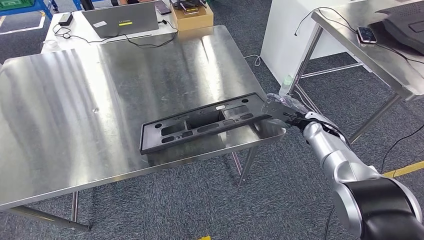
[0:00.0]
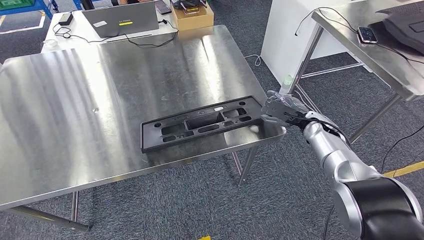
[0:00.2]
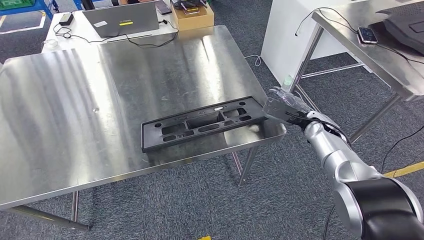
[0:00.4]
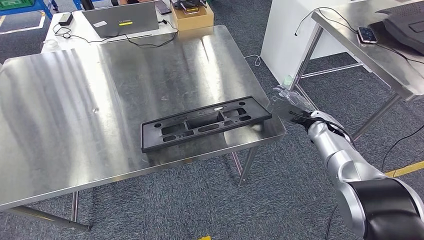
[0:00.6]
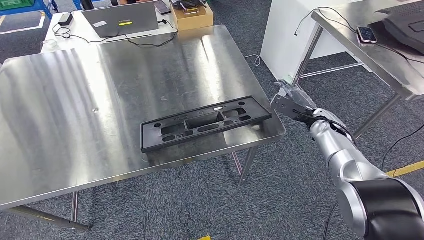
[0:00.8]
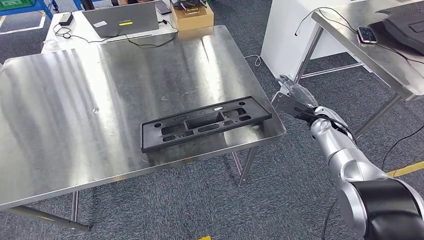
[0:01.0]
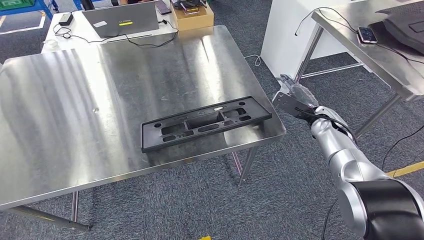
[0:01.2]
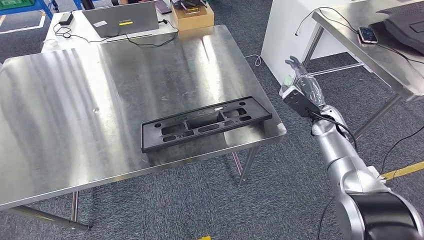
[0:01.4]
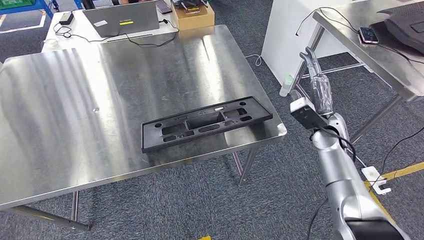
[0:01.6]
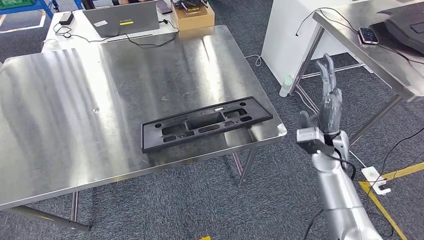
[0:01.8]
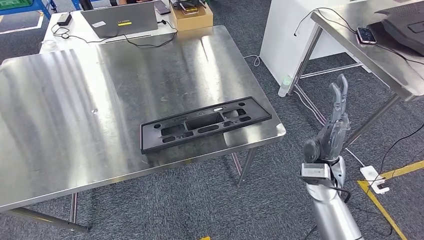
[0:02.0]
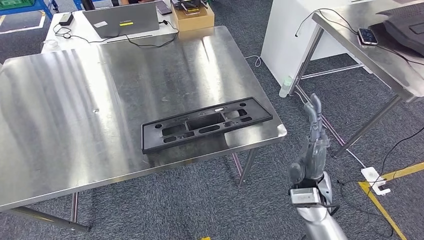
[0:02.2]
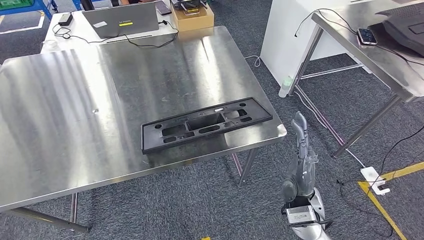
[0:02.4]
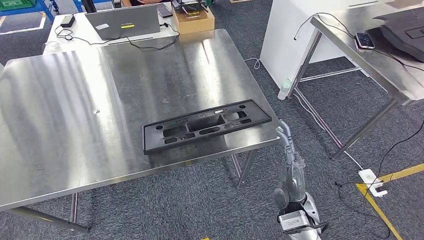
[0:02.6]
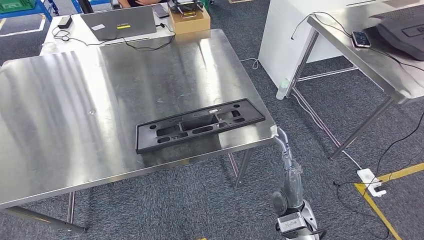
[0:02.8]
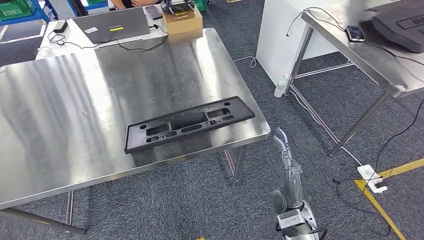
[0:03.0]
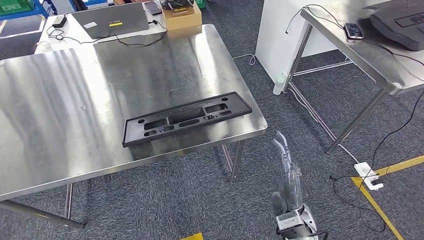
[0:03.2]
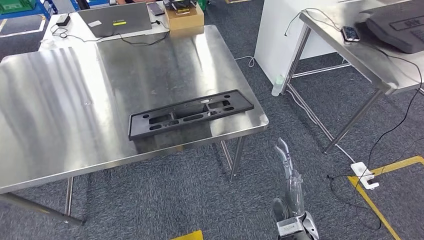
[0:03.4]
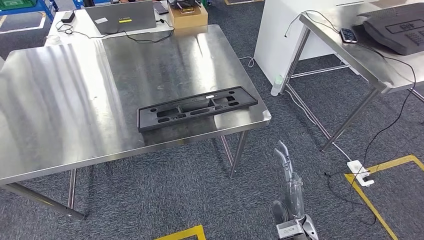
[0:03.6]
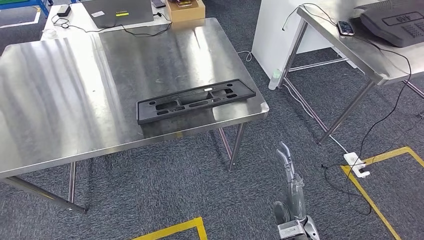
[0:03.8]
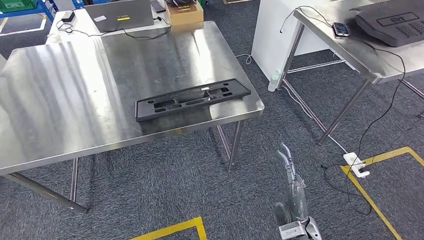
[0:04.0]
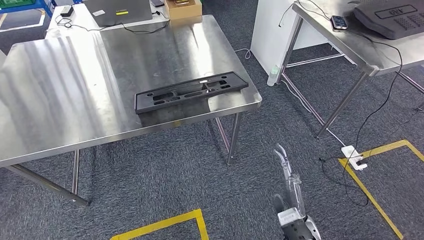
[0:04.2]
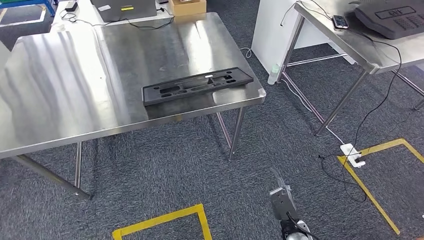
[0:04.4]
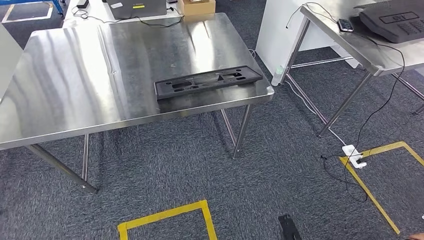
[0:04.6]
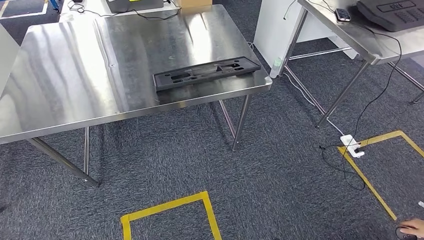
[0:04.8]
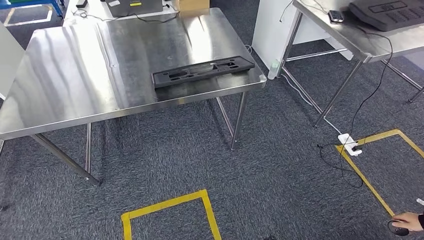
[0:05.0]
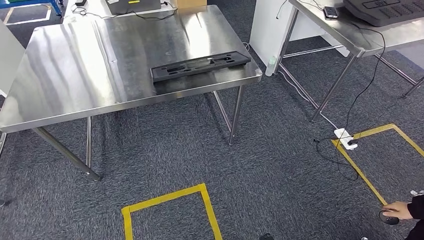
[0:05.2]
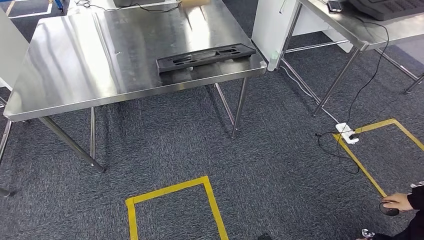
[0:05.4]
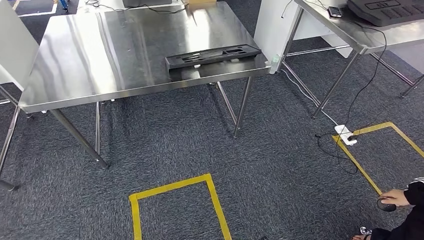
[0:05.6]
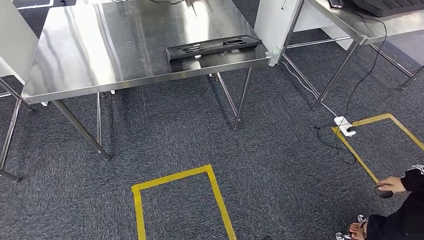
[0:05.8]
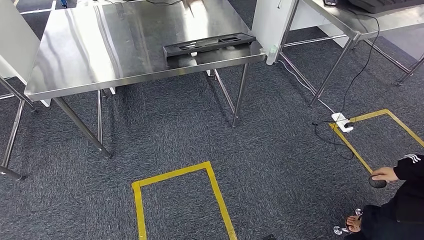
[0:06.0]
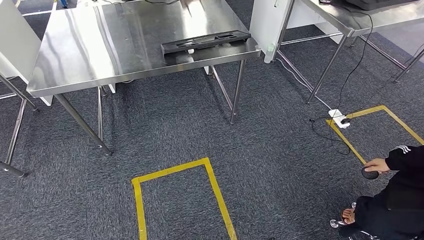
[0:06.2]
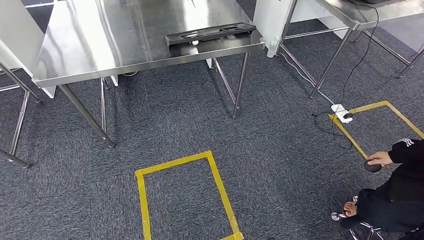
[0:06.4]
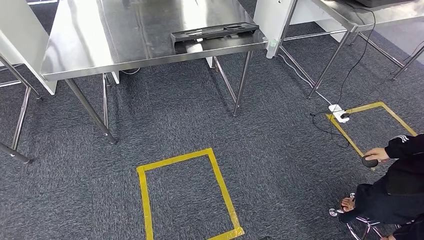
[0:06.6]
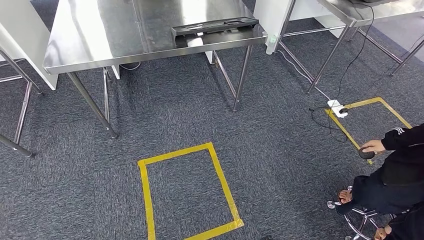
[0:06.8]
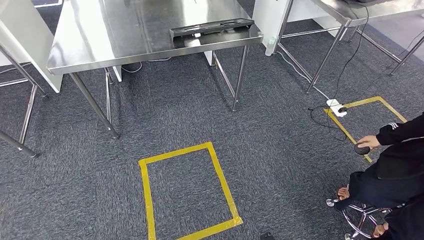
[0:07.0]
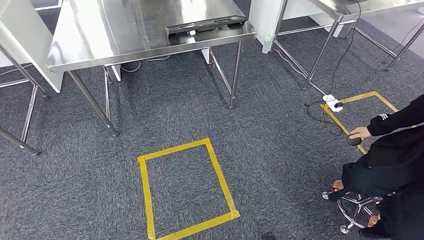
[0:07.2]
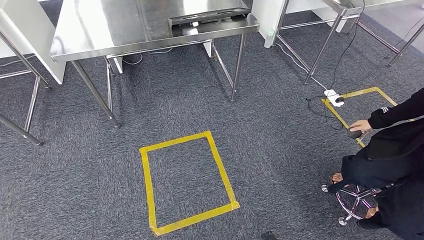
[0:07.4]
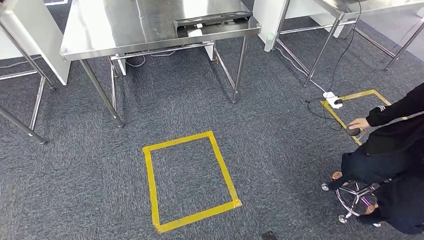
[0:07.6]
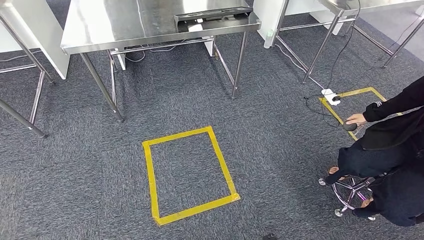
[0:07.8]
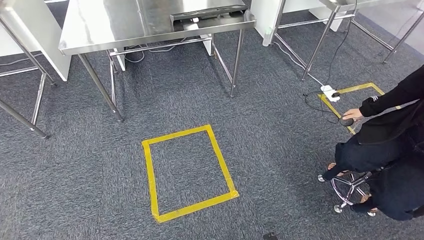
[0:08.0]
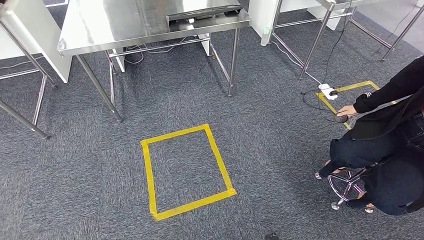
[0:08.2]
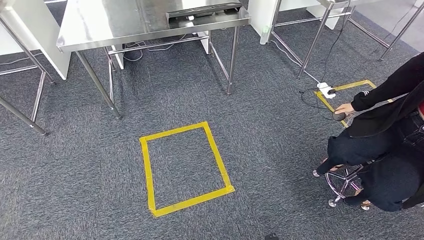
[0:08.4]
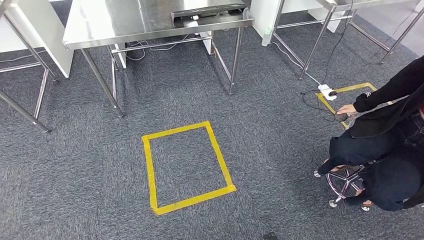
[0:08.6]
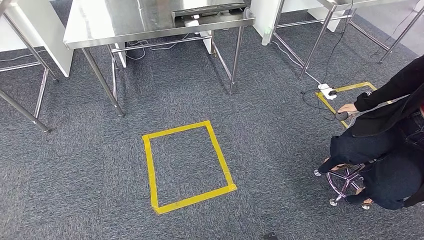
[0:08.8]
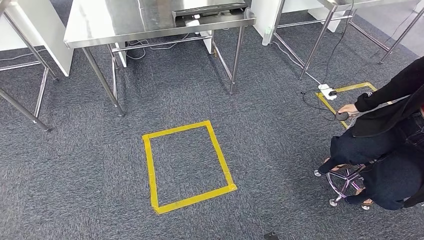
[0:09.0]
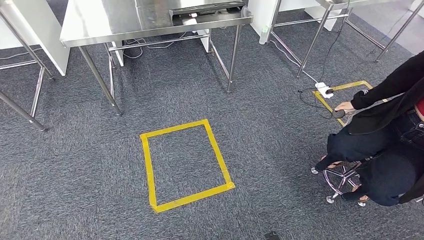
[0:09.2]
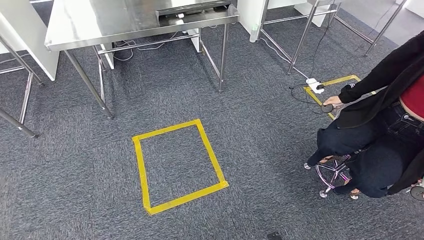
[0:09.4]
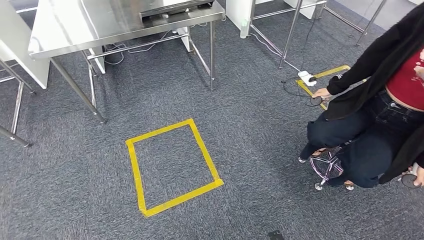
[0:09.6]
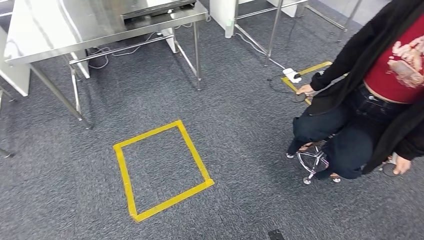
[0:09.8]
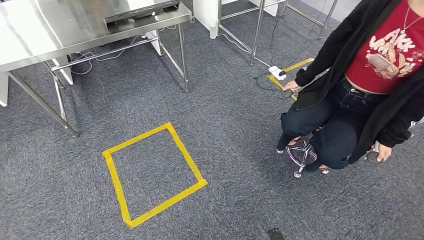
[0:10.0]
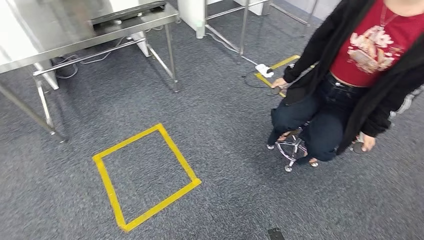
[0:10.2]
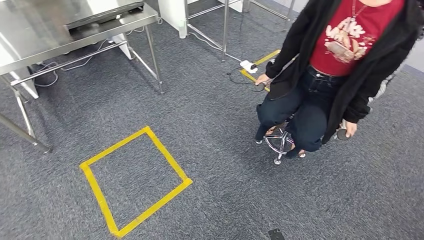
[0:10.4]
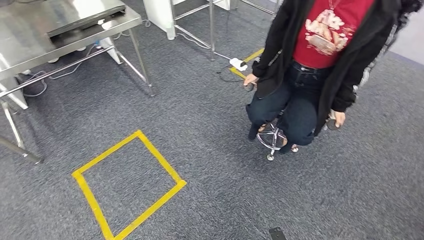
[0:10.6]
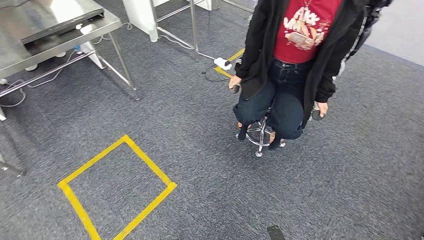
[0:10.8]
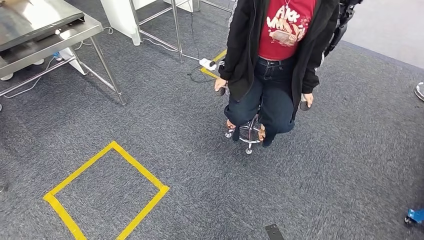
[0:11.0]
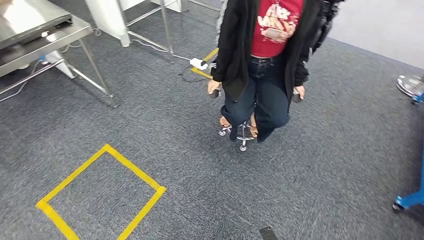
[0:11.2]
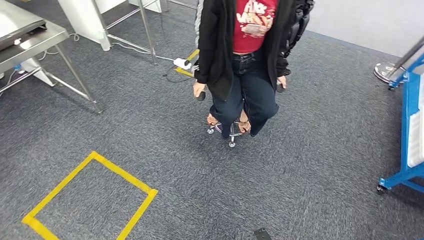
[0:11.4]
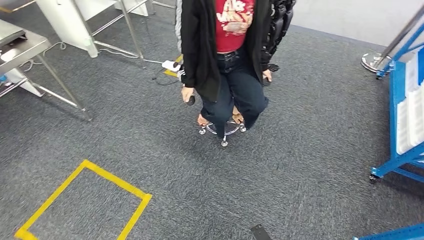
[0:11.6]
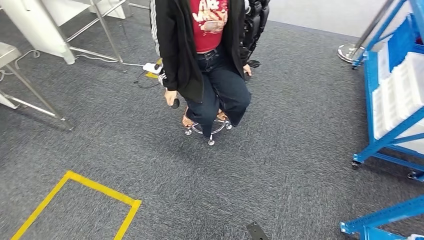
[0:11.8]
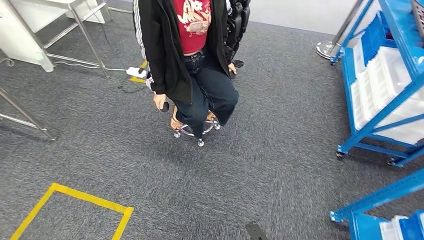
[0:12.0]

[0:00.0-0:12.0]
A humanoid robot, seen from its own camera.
Step, 0:00.0 to 0:02.4: Insert the large material into the corresponding hole on the workbench.
0:00.0 to 0:01.6: The right hand goes about 5 cm backward.

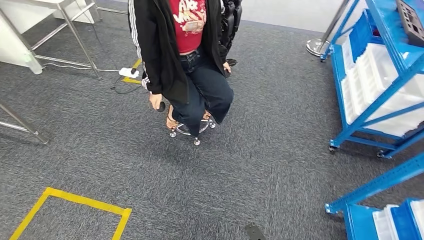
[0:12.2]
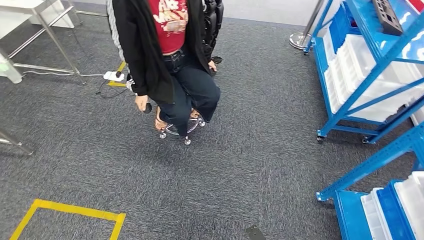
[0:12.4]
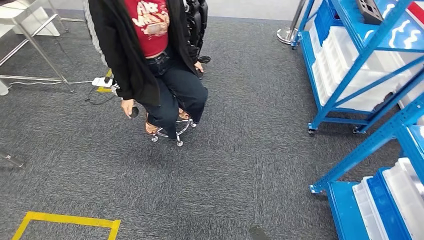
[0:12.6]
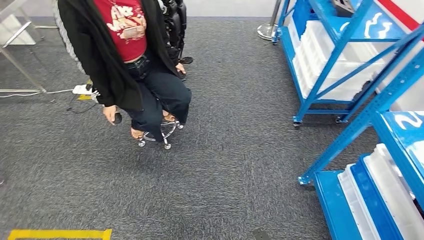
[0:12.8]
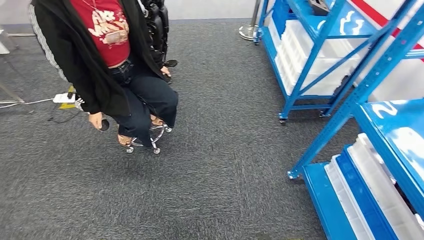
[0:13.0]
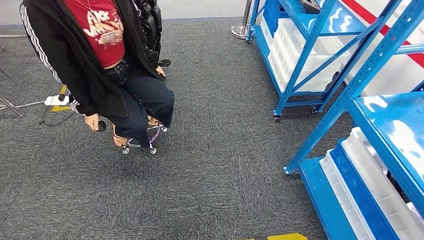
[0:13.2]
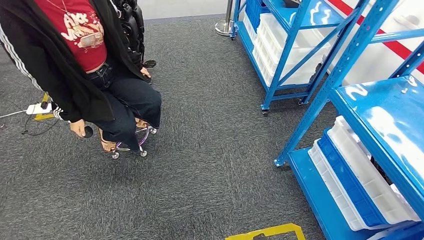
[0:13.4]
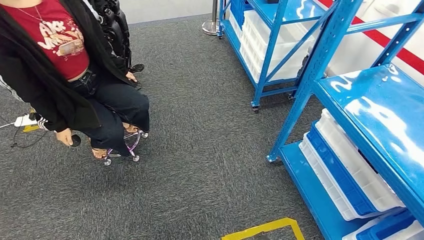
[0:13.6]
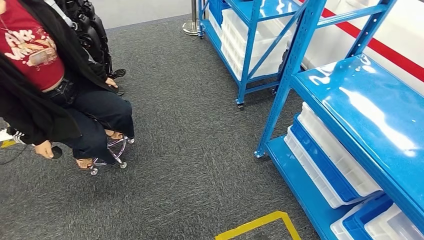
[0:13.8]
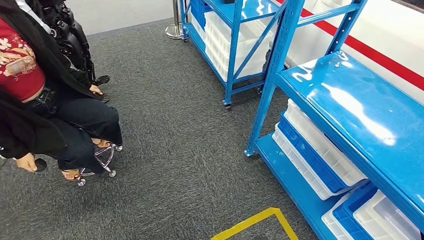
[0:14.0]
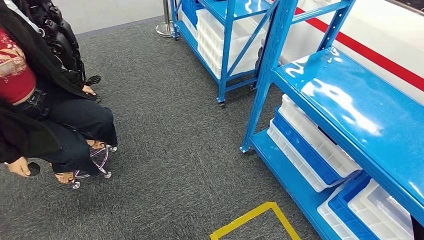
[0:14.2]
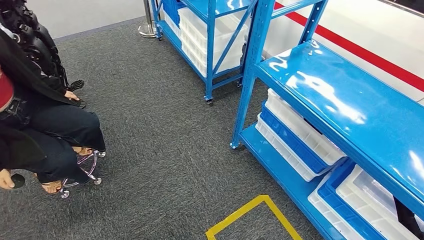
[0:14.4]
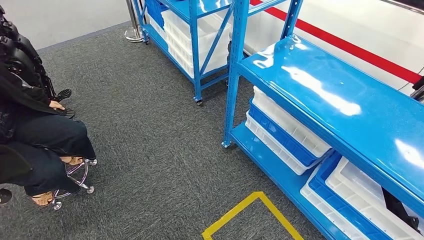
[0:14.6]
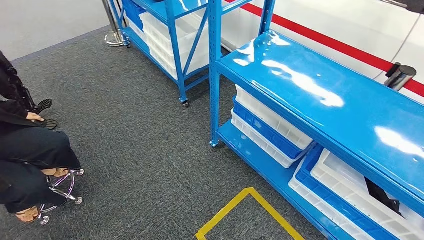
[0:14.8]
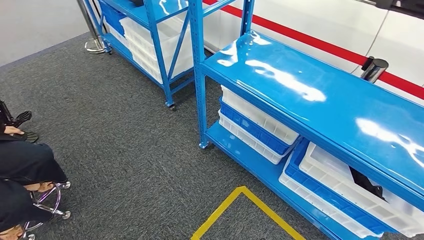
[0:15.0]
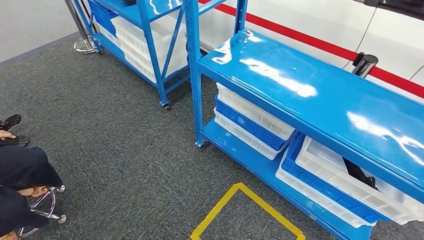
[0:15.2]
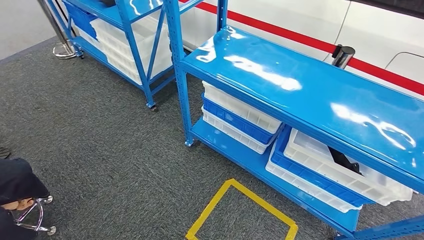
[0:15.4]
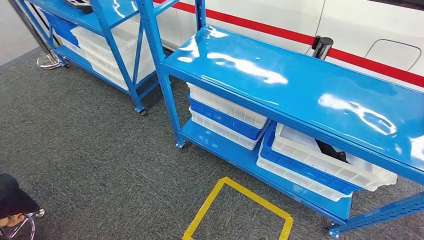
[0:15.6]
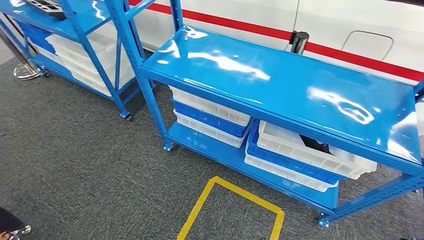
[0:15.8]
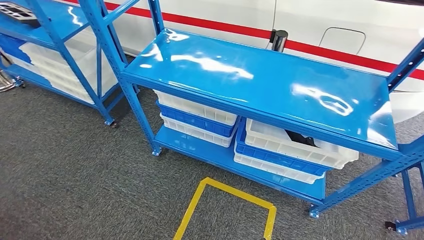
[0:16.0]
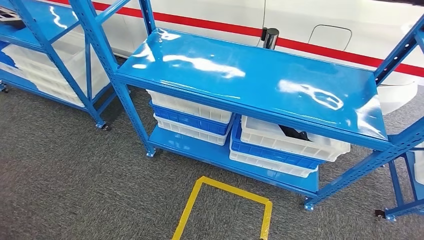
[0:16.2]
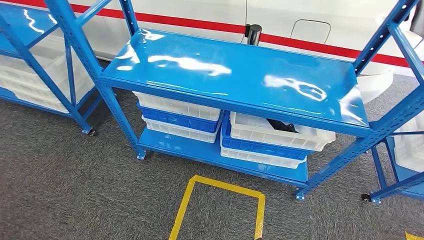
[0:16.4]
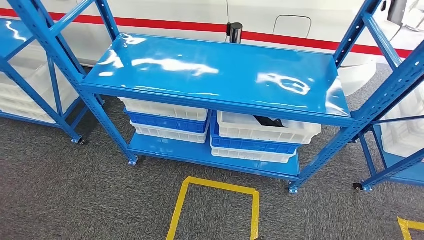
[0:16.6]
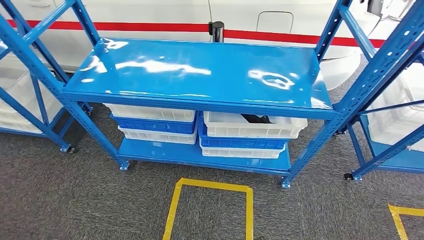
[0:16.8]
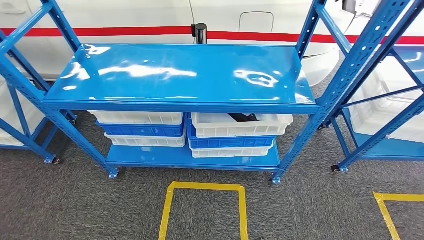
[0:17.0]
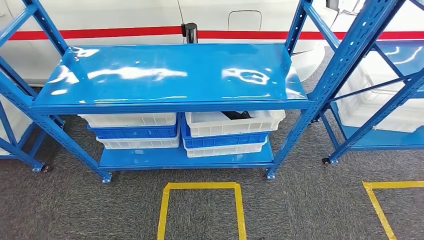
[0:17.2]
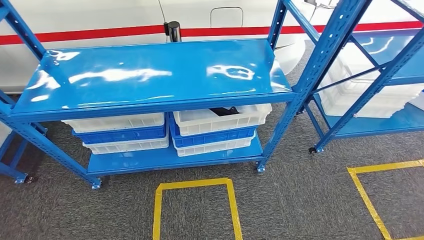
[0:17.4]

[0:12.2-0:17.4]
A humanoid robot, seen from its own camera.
Step, 0:12.2 to 0:17.4: Move to the initial position of the shelf.
